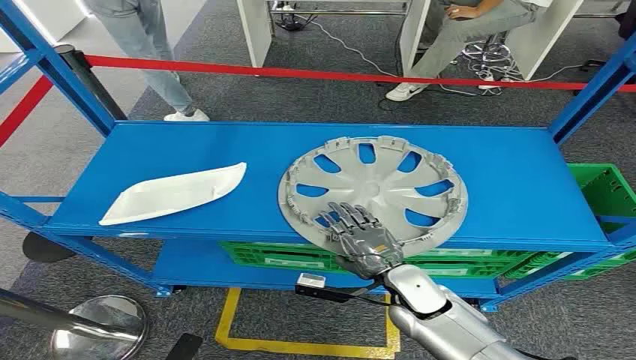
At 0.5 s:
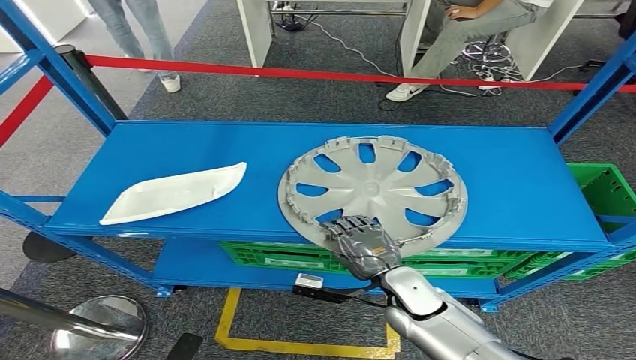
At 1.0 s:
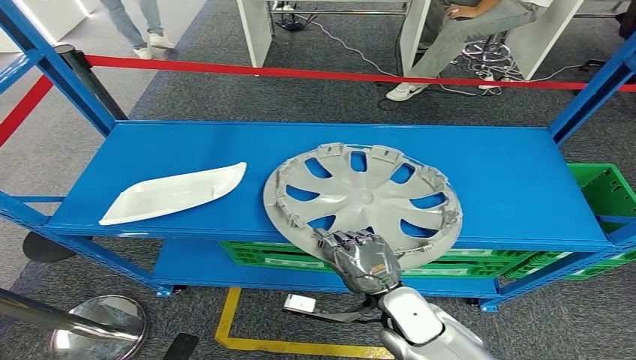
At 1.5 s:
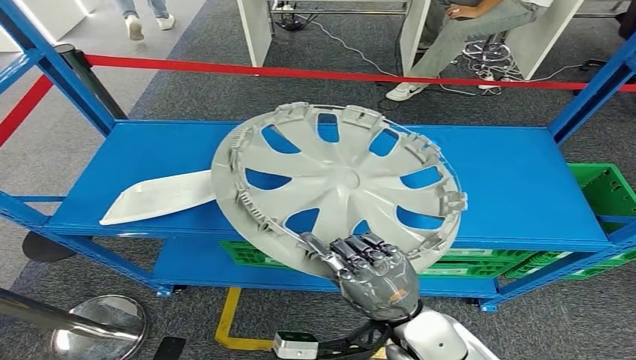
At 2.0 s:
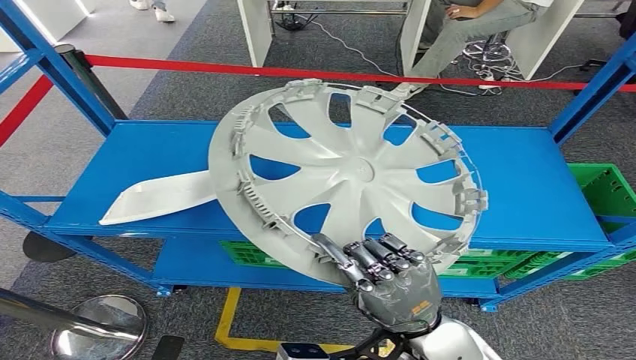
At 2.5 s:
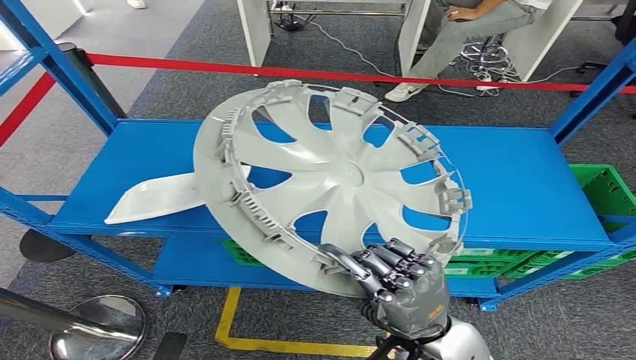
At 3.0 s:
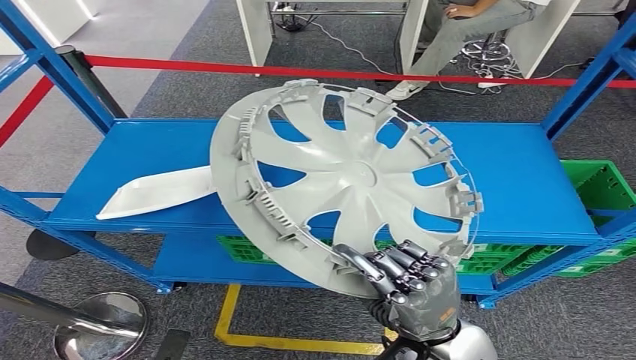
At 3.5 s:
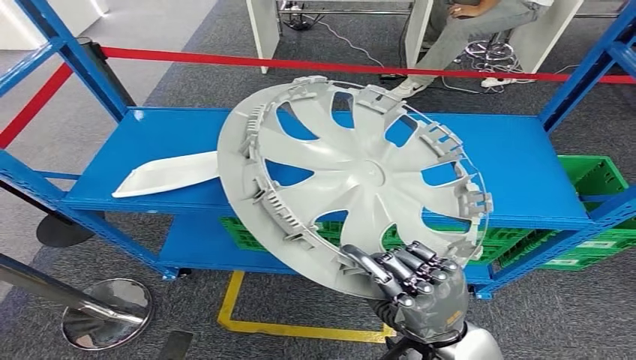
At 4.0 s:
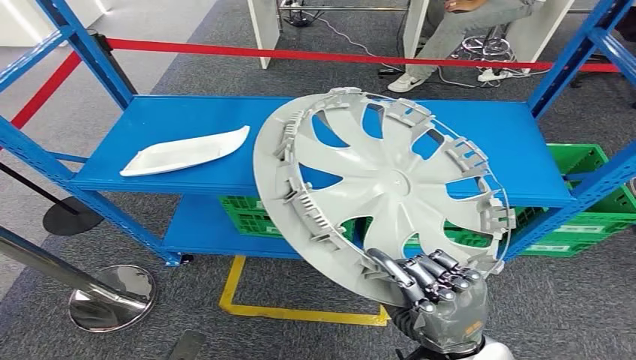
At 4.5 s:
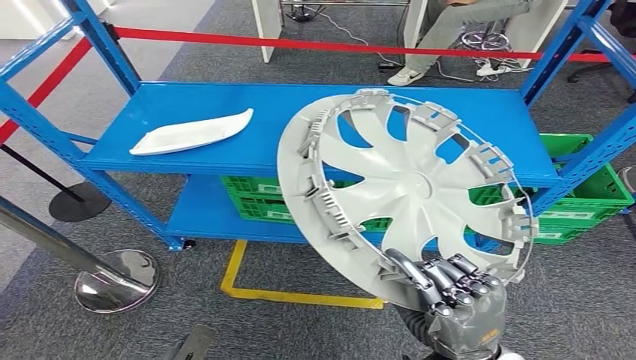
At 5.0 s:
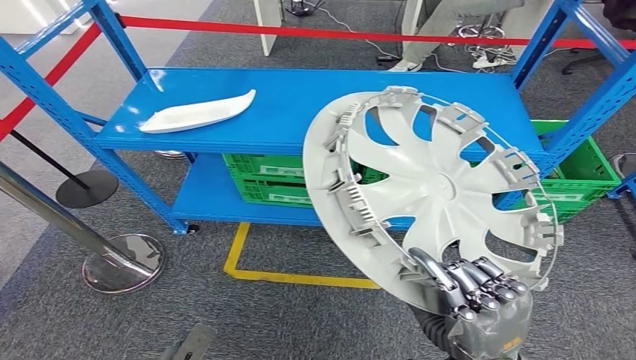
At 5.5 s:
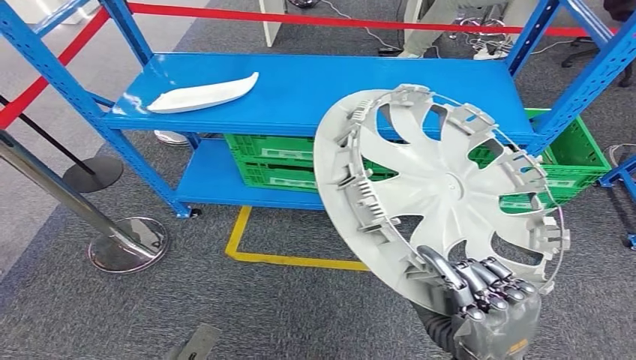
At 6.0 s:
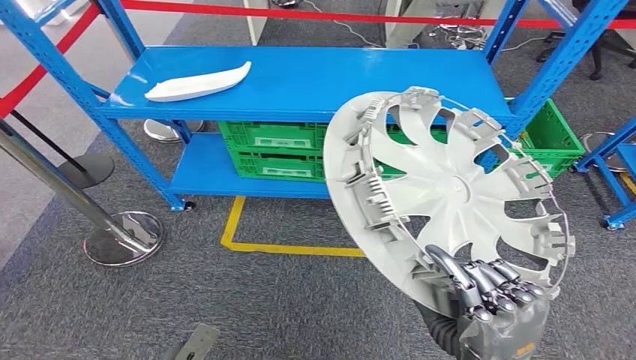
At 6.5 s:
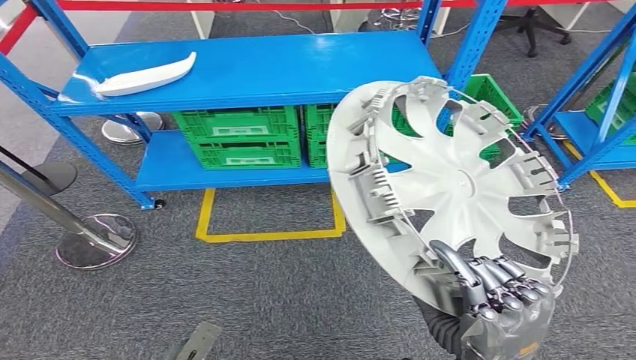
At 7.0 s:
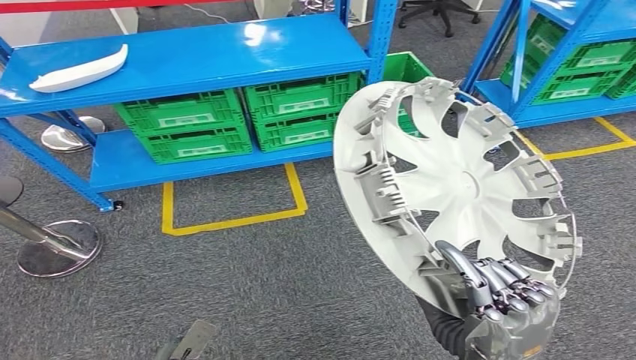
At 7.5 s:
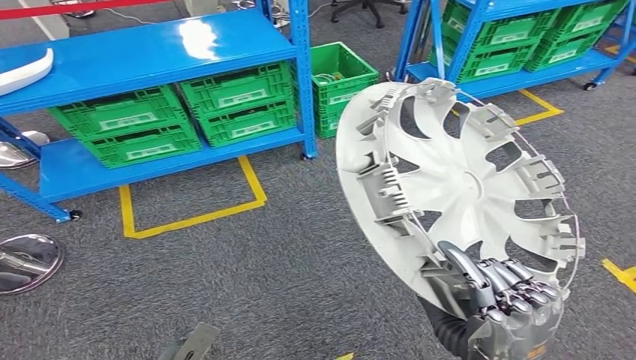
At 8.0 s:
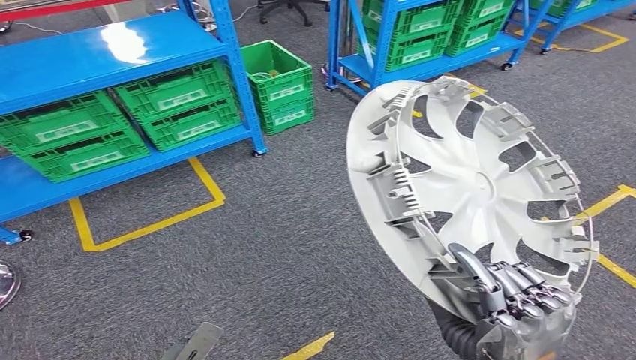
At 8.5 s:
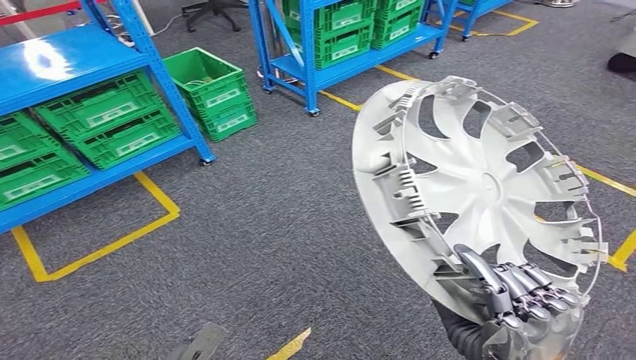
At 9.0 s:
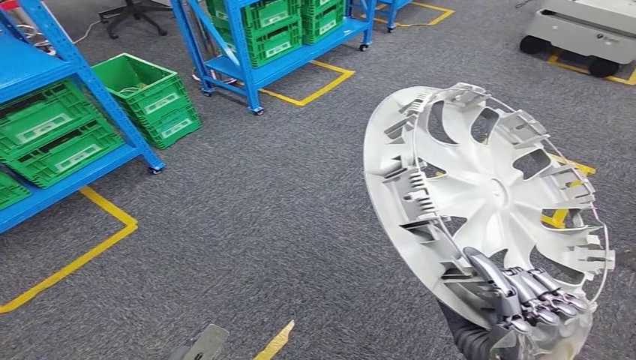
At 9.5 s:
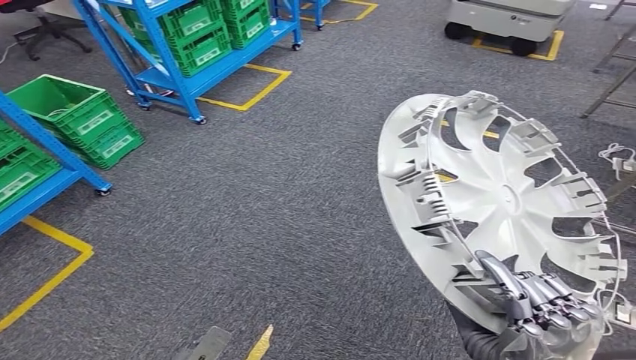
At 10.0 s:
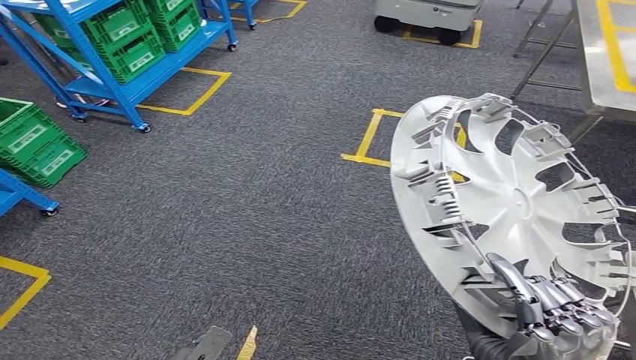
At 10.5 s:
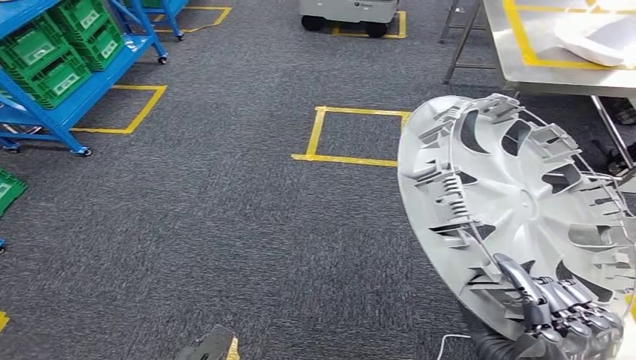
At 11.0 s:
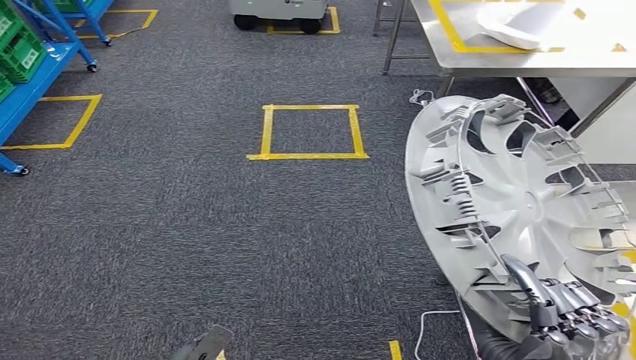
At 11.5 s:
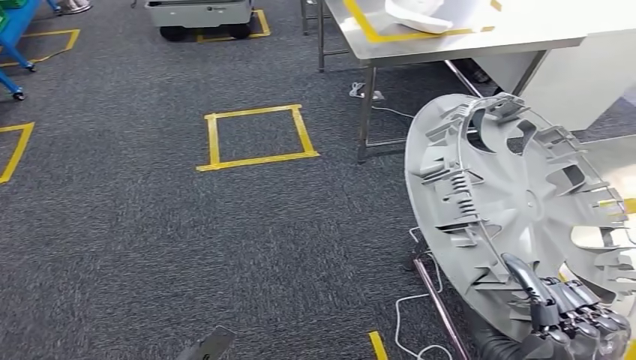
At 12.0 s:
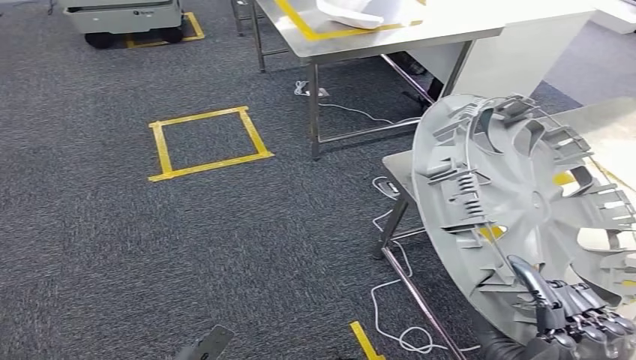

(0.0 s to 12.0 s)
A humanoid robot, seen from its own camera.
Step, 0.0 s - 1.5 s: Take small components from the rack.

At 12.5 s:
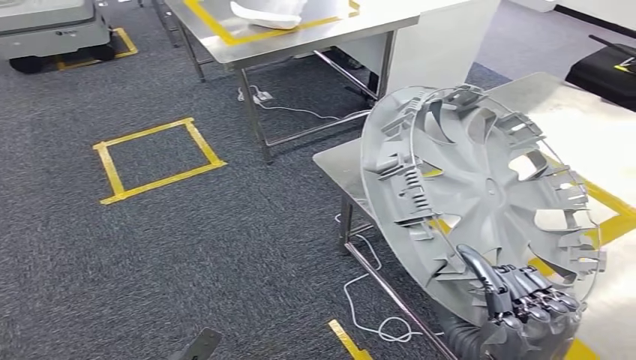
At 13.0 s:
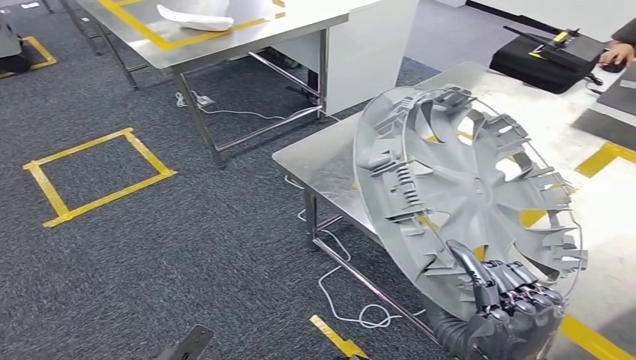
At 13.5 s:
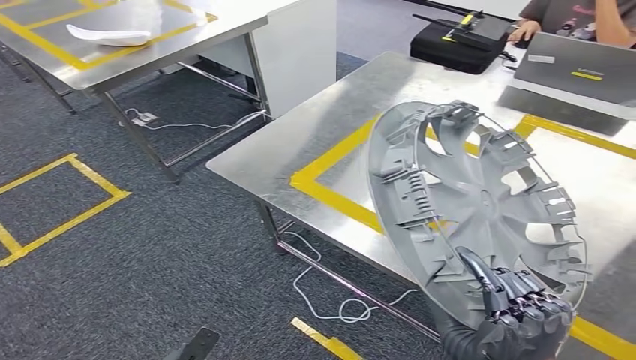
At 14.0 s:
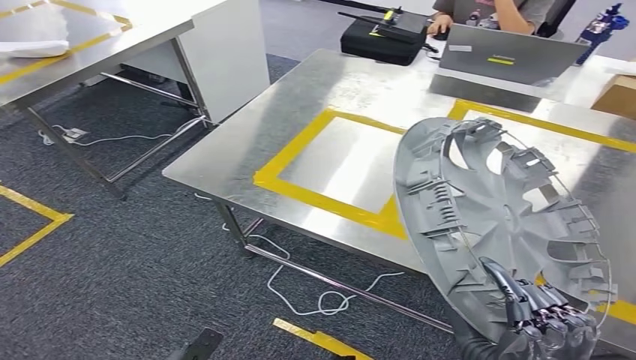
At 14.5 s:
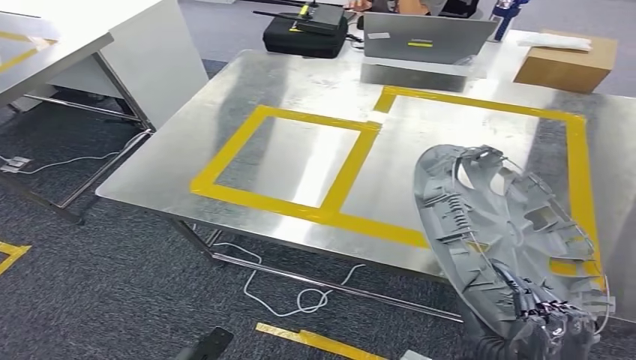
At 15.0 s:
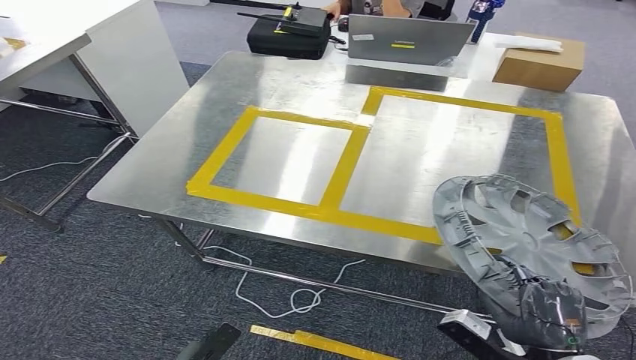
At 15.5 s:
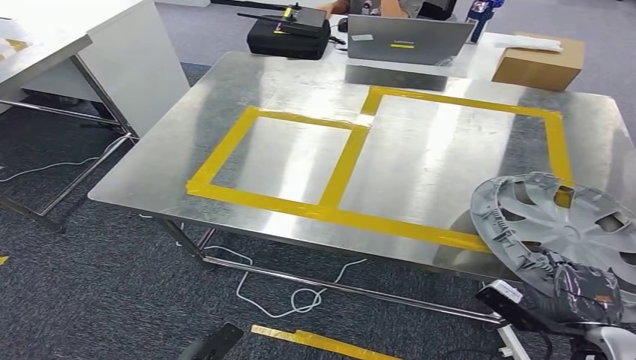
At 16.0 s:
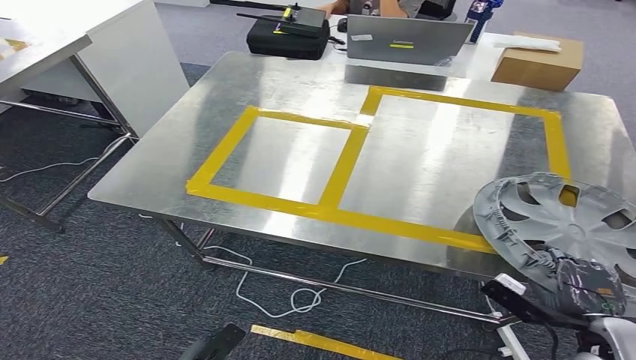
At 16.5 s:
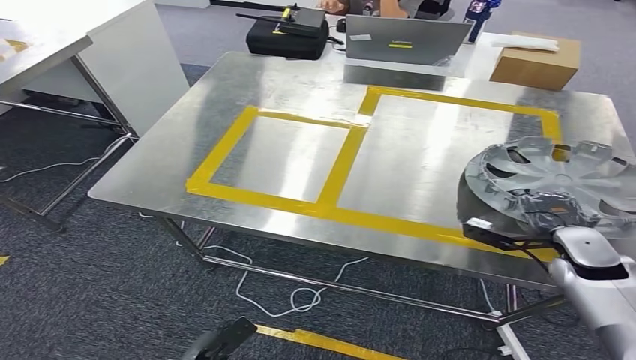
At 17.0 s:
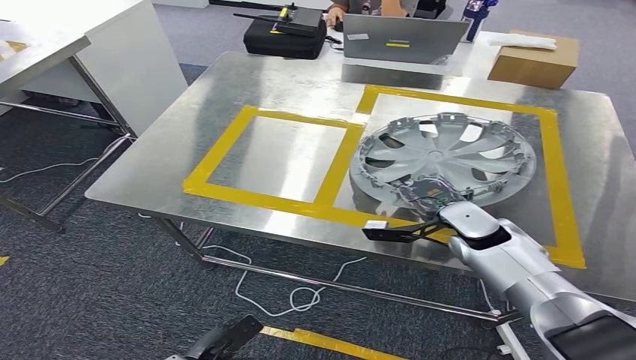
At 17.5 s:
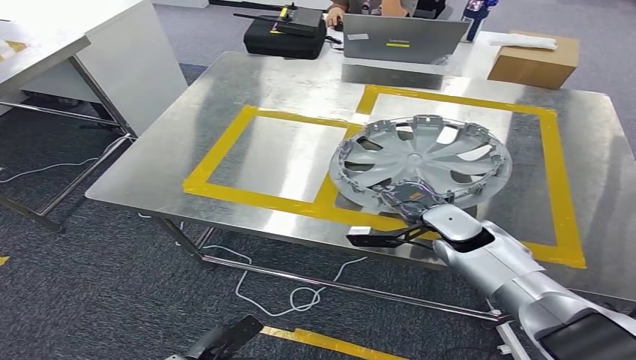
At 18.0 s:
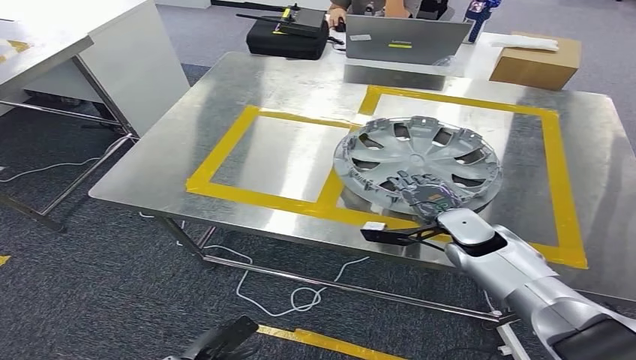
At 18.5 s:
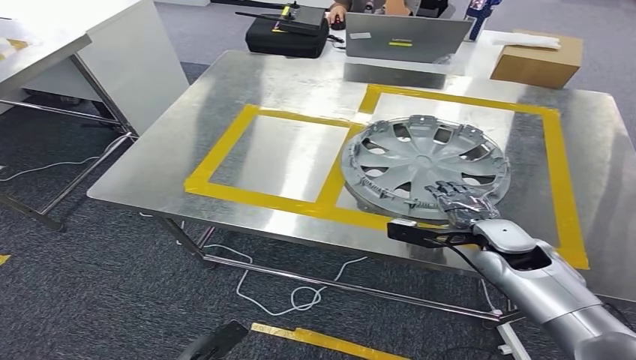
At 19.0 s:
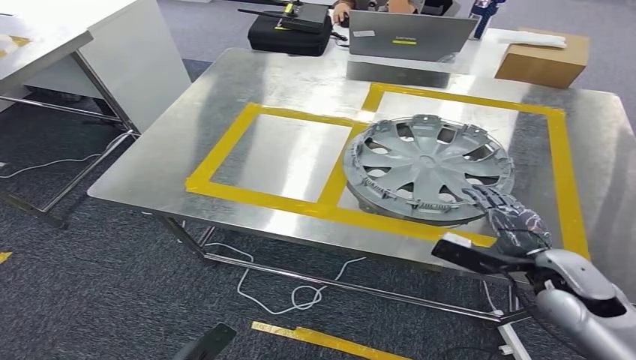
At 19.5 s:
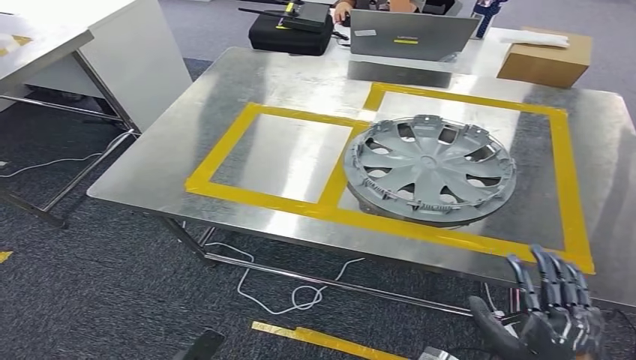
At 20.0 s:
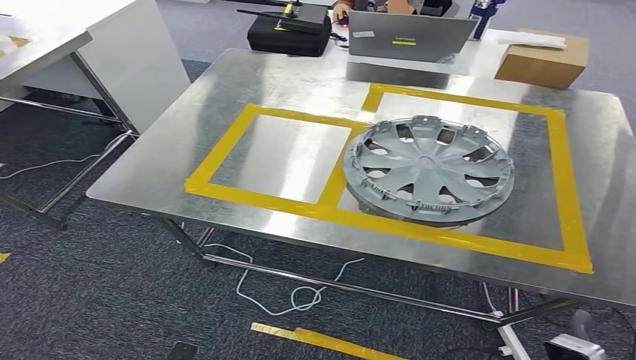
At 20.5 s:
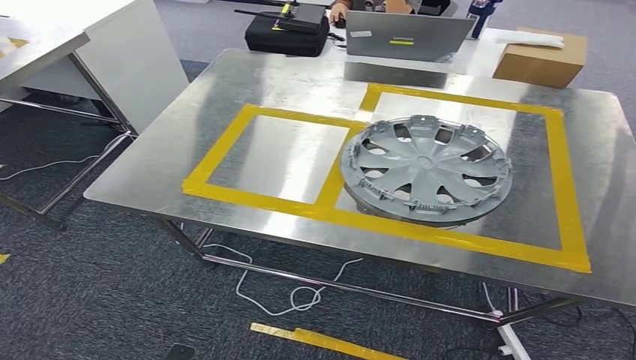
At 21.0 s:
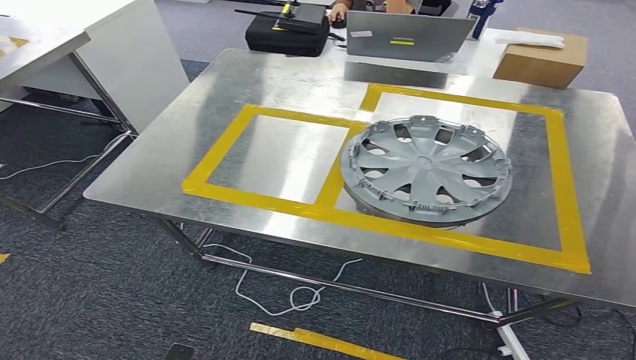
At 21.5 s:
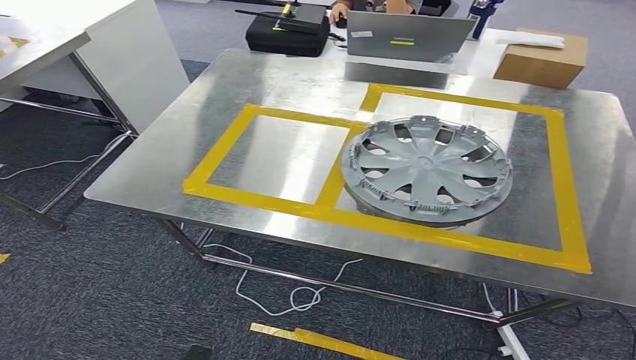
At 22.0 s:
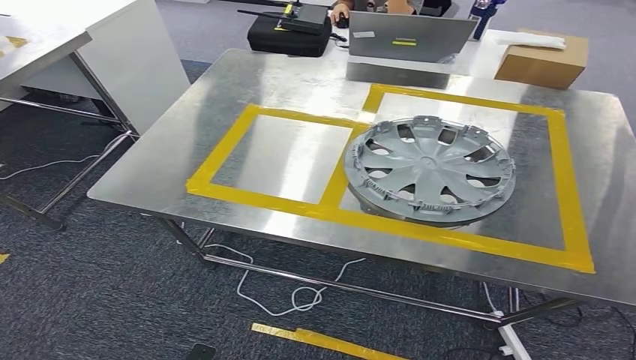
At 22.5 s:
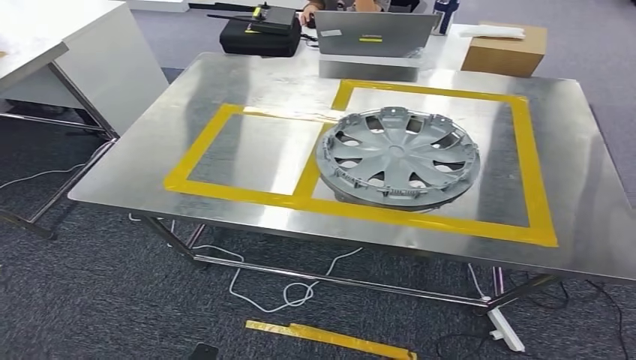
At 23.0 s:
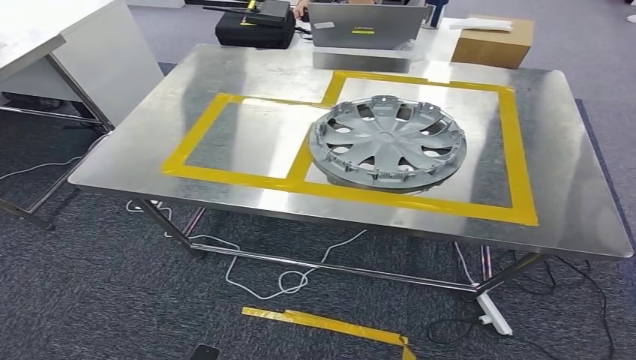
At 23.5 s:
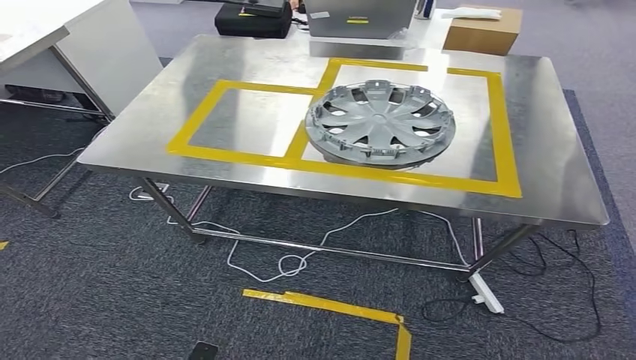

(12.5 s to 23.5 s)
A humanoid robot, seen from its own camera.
Step, 12.5 s - 14.5 s: Move the small parts to the workbench.
Step, 15.0 s - 18.5 s: Insert the small parts into the corresponding holes on the workbench.
16.0 s - 18.0 s: The right hand heads forward and to the left, covering roughly 25 cm.
18.0 s - 20.0 s: The right hand is displaced backward by roughly 35 cm. Meanwhile the left hand travels backward by some 10 cm.
20.0 s - 21.5 s: The right hand heads downward and to the left, covering some 25 cm.
